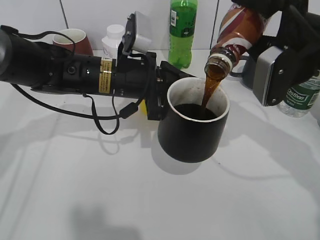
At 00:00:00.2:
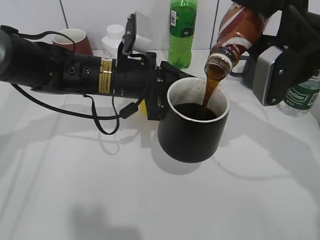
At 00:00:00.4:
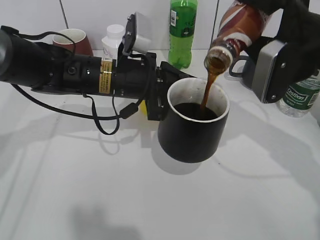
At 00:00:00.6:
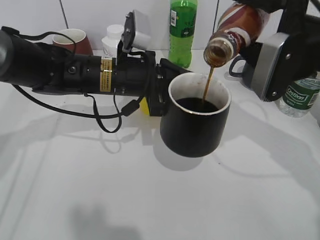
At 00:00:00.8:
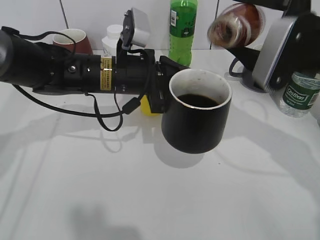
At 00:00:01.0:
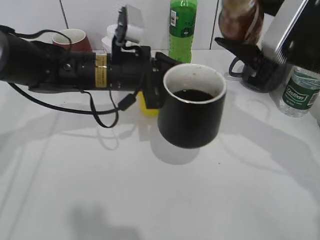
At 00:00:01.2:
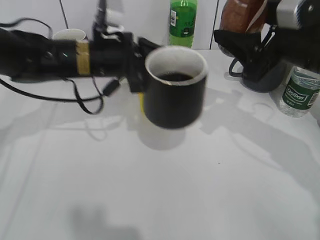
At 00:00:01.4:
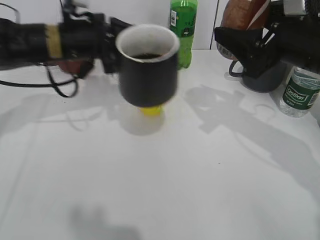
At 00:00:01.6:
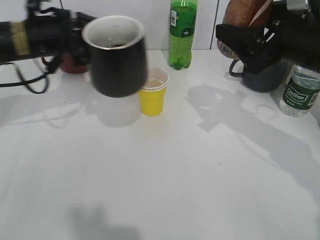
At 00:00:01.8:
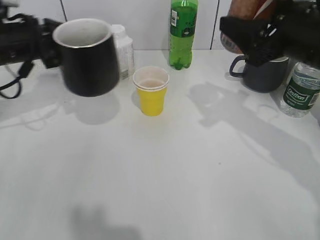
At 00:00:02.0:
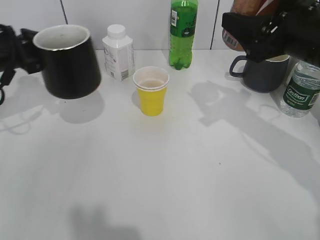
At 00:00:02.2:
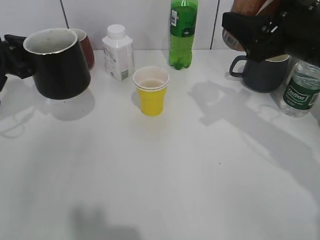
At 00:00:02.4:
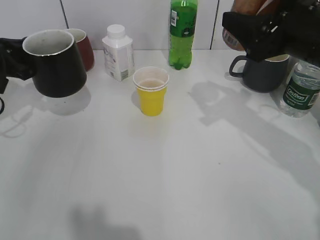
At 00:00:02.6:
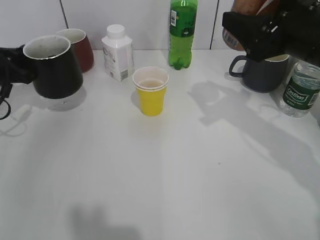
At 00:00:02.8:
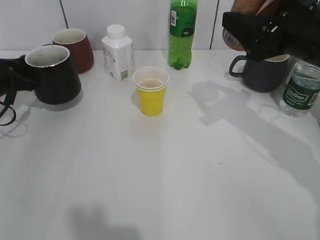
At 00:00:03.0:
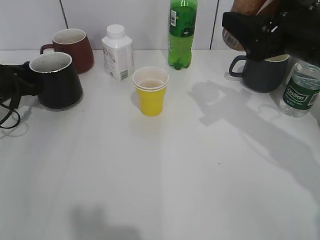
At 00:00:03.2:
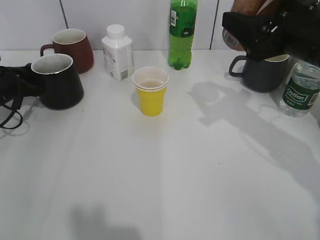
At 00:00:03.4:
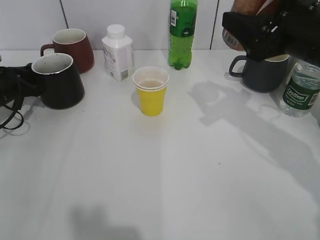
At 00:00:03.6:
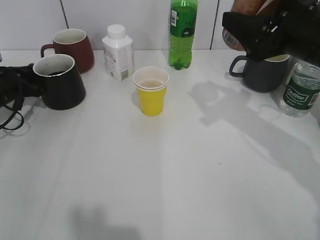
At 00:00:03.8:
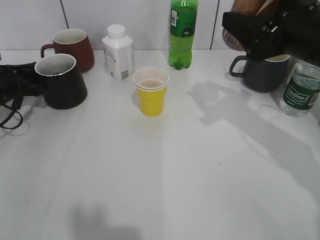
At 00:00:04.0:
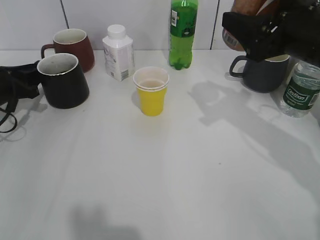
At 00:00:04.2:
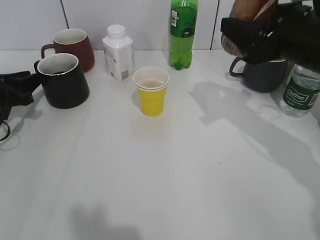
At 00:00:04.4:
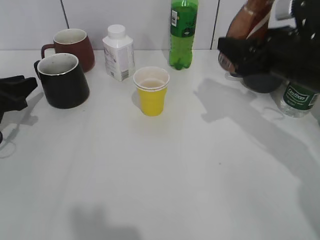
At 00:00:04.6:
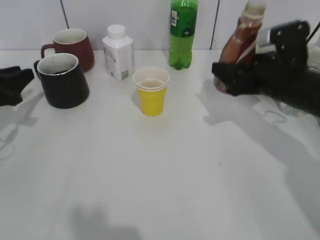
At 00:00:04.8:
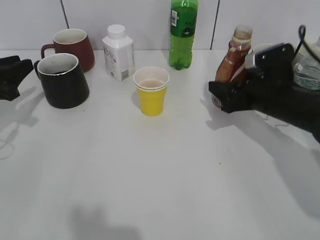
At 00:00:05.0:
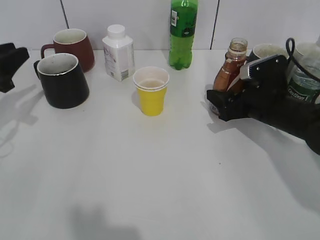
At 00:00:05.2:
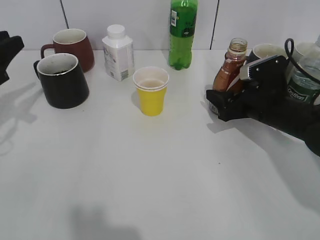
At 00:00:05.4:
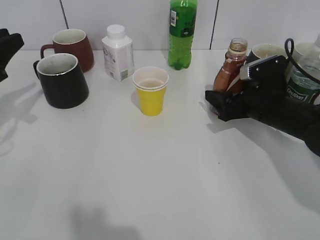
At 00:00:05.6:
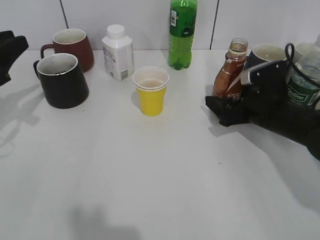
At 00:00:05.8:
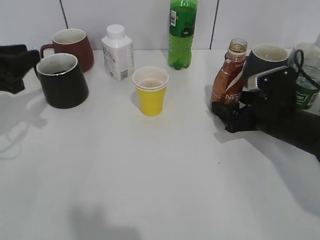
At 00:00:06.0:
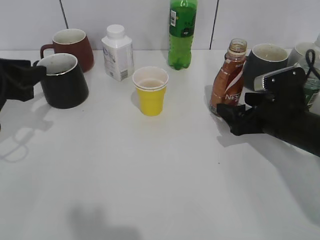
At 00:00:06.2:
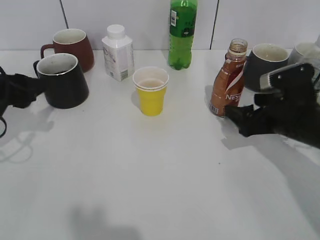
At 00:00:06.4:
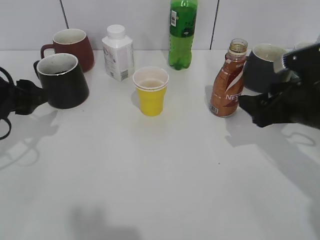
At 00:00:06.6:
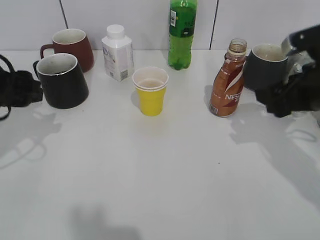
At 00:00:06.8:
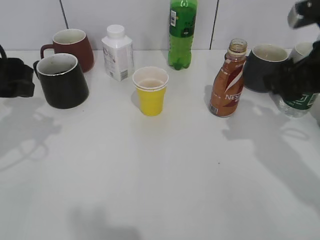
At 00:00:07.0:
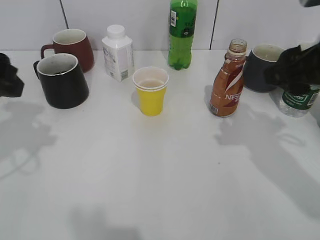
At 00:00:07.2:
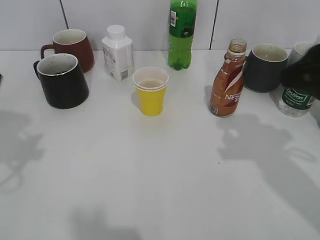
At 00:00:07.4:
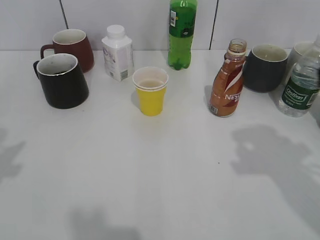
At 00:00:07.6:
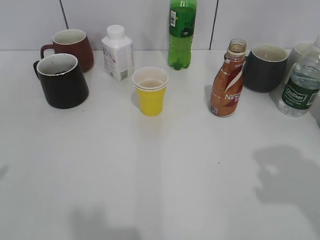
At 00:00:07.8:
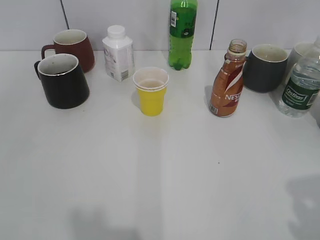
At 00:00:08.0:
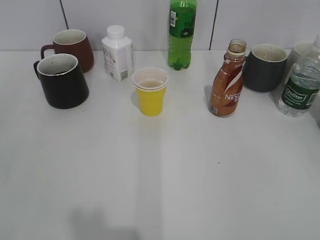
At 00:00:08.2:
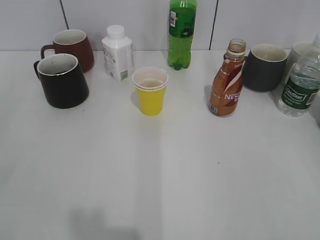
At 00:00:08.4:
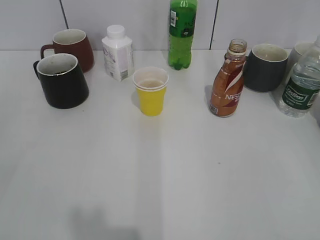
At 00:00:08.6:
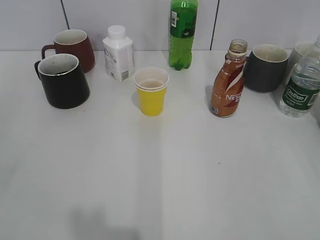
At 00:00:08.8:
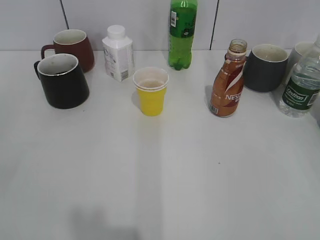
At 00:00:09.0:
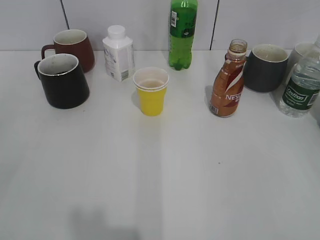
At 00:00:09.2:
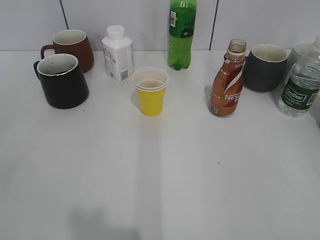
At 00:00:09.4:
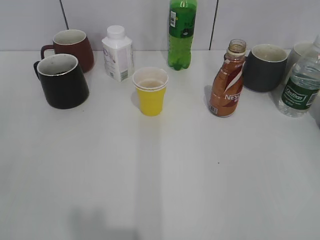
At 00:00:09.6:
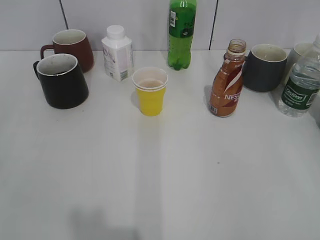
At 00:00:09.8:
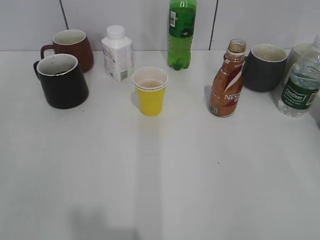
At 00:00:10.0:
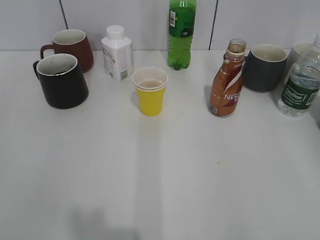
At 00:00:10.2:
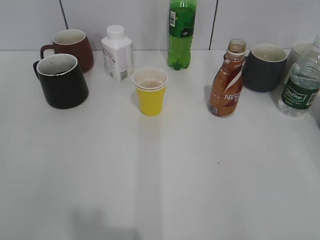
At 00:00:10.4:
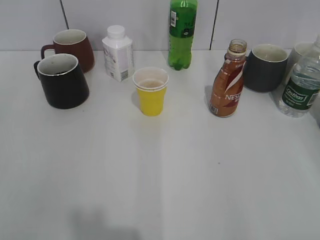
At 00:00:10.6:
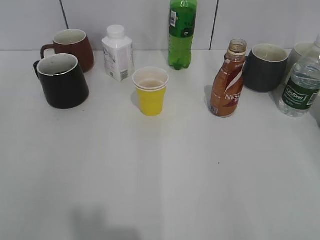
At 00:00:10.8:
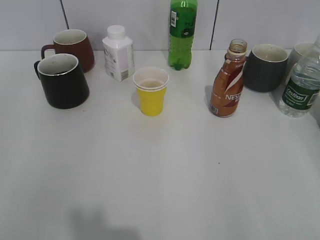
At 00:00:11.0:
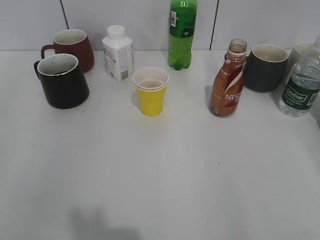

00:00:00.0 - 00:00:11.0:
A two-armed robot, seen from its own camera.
Step, 00:00:01.0 - 00:00:04.2: Place the black cup on the table with left gripper.
Step, 00:00:04.4 - 00:00:06.0: Place the coffee bottle on the table with right gripper.
00:00:00.0 - 00:00:01.6: The left gripper travels to the left by approximately 10 cm.
00:00:01.6 - 00:00:03.2: The left gripper goes roughly 20 cm to the left and downward.
00:00:03.2 - 00:00:04.8: The right gripper travels downward by roughly 15 cm, while the left gripper moves backward and upward, about 10 cm, and opens its fingers.
00:00:04.8 - 00:00:06.2: The right gripper changes place by some 5 cm, and opens up. The left gripper shifts by roughly 5 cm, and opens up.
00:00:06.2 - 00:00:07.8: Both grippers move backward and upward, roughly 30 cm. The right gripper closes its fingers.

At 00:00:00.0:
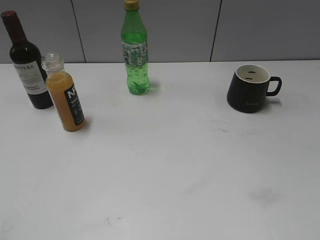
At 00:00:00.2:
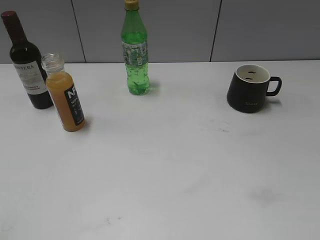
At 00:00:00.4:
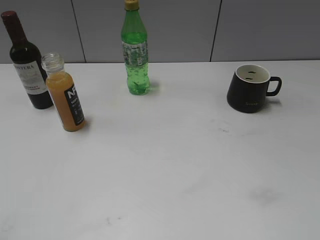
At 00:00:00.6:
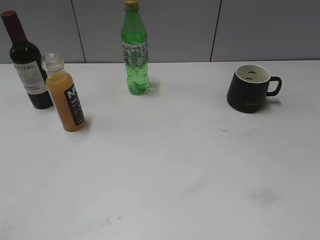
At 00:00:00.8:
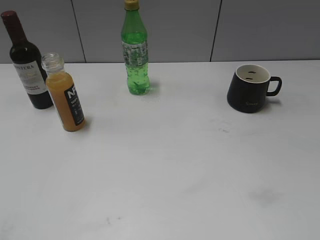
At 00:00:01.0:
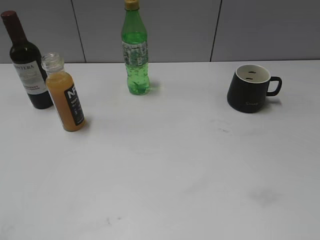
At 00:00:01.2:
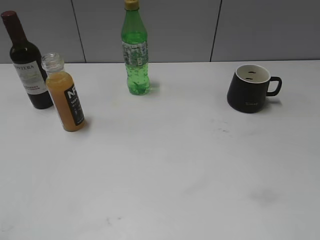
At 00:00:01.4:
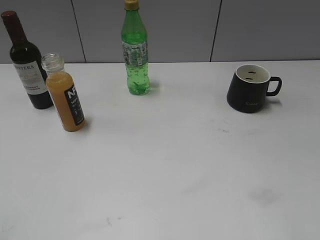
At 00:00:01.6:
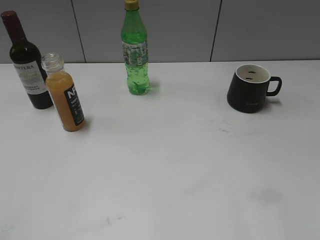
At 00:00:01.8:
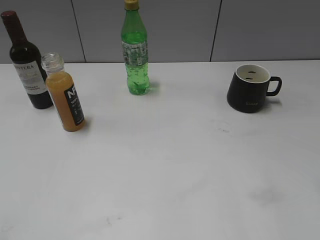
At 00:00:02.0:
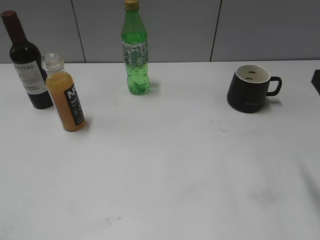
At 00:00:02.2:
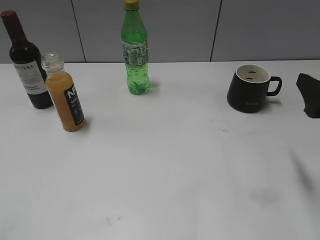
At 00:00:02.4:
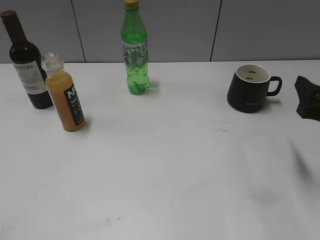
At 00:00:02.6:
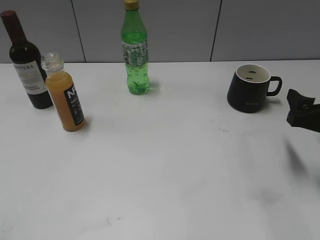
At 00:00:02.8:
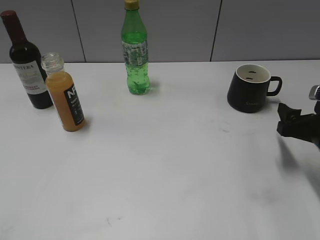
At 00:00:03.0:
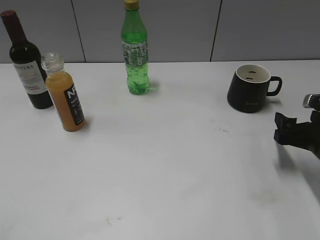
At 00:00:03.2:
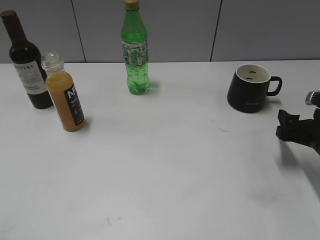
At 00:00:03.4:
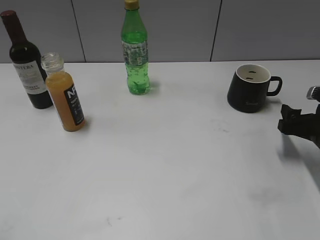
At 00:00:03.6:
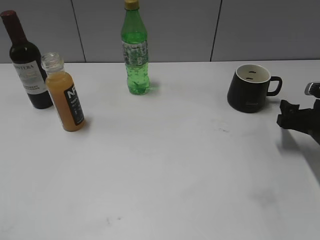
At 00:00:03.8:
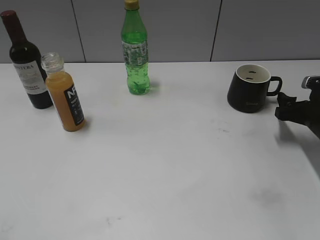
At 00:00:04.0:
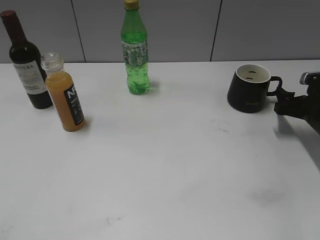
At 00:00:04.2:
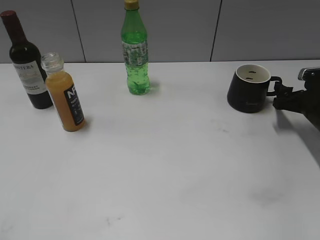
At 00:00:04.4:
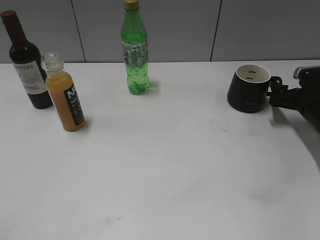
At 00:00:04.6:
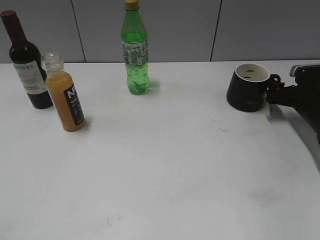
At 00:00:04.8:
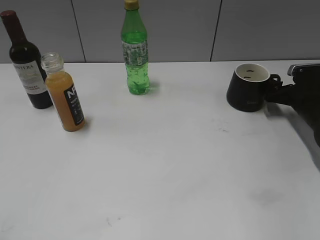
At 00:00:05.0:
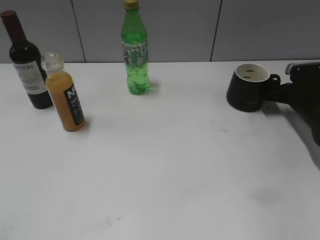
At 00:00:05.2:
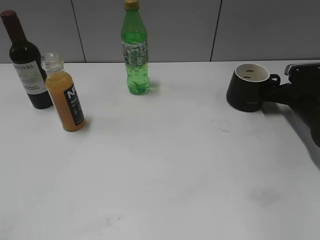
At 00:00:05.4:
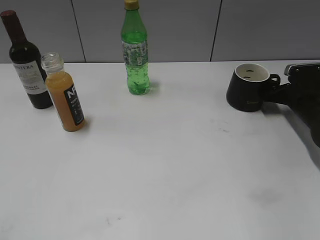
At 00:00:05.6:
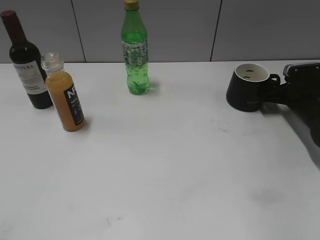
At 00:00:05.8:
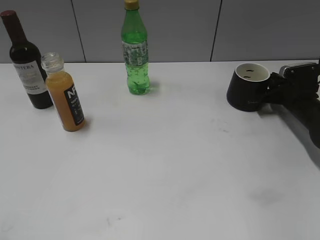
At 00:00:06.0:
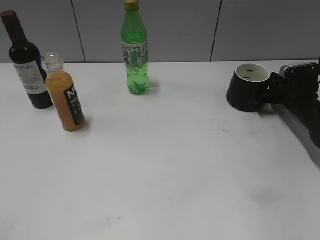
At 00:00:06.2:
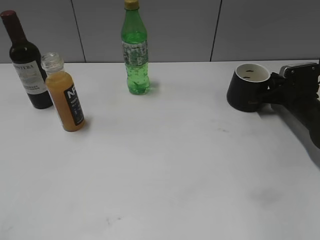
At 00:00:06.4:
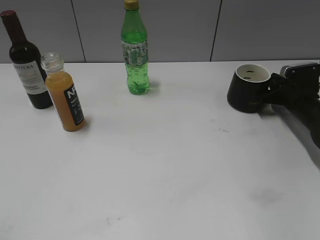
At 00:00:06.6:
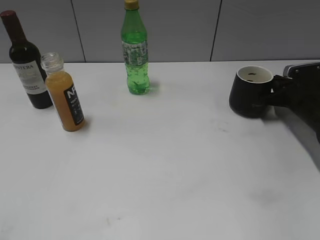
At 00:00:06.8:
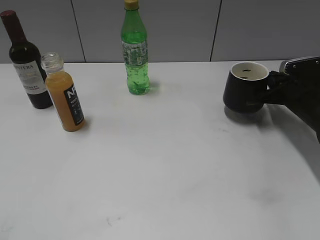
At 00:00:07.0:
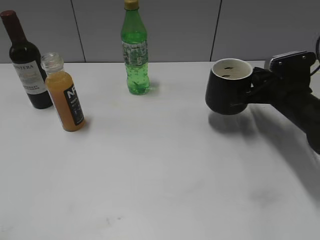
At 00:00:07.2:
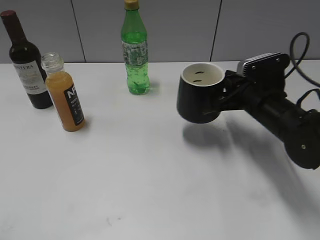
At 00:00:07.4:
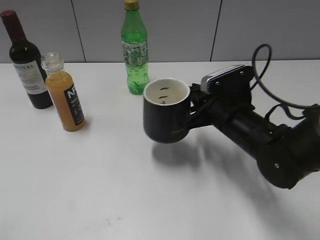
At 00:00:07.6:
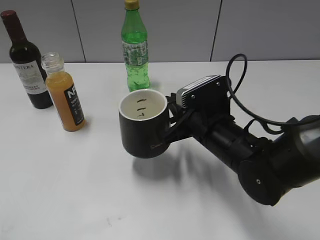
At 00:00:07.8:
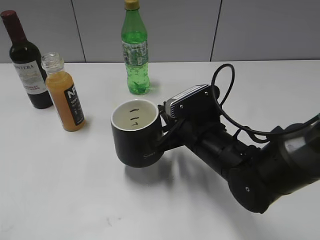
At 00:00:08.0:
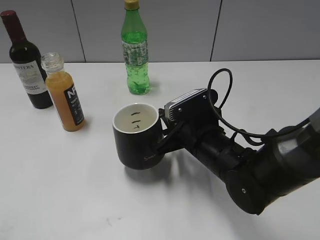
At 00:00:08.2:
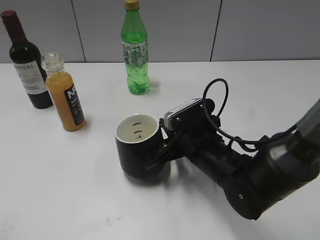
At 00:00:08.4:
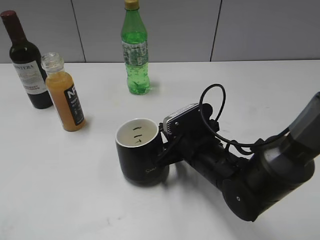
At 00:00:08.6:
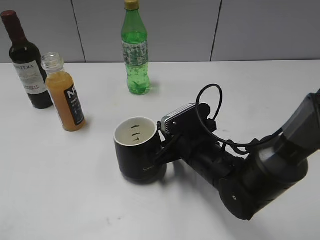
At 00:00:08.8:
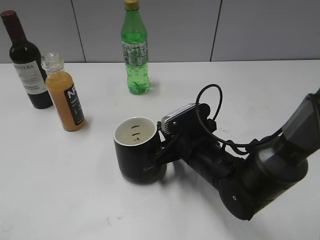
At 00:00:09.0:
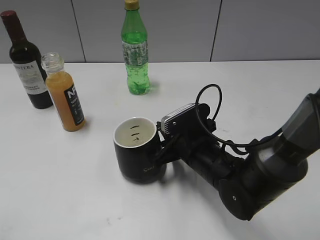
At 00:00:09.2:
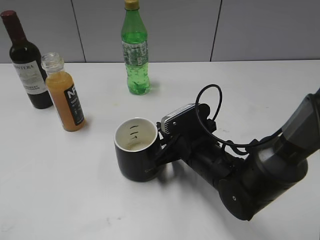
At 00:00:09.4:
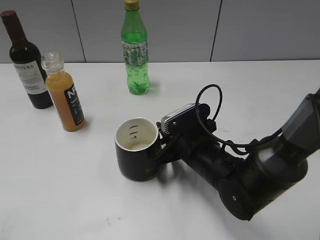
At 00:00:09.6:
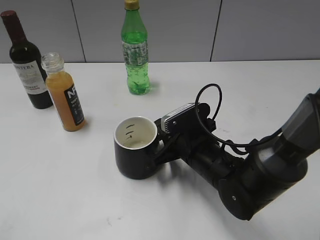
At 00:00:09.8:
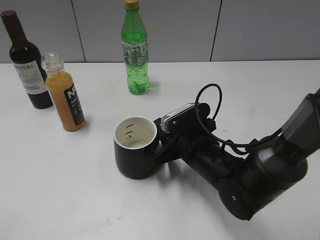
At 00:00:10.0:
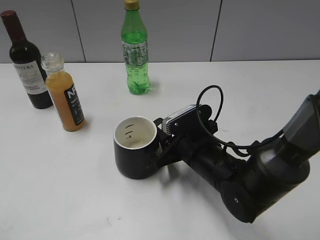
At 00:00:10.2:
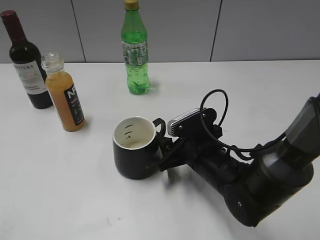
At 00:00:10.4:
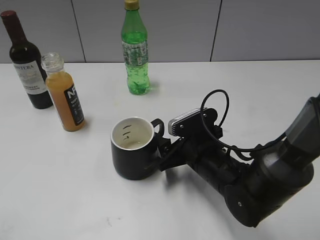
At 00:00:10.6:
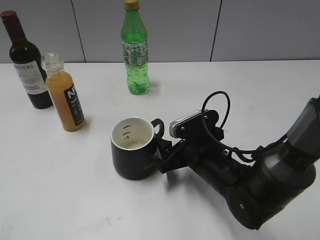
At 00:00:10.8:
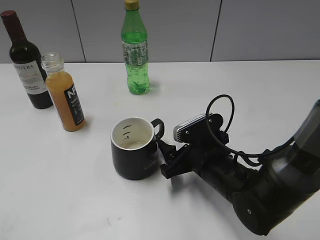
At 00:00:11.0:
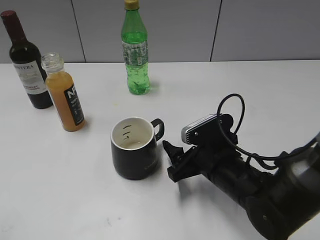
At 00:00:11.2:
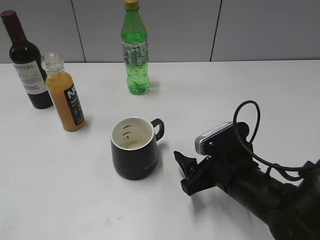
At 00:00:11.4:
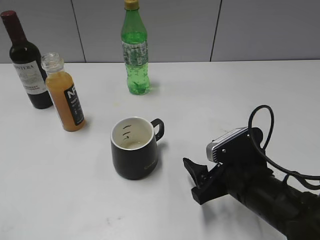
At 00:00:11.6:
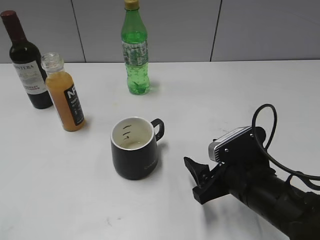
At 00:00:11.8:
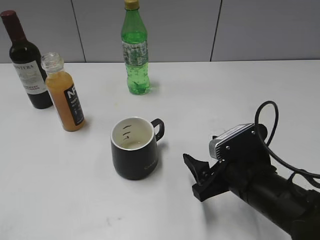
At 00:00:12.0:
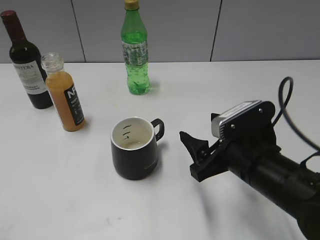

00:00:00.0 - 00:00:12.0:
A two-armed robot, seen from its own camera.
Step, 00:00:02.0 - 00:00:06.4: Grasp the black cup with right gripper.
Step, 00:00:06.8 - 00:00:10.2: Place the black cup in the center of view with right gripper.
00:00:01.6 - 00:00:03.0: The right gripper moves downward and forward, approximately 25 cm.
00:00:03.0 - 00:00:04.4: The right gripper shifts approximately 10 cm forward.
00:00:04.4 - 00:00:06.0: The right gripper closes its fingers.
00:00:06.0 - 00:00:07.6: The right gripper is displaced to the left and backward by roughly 25 cm.
00:00:07.6 - 00:00:09.0: The right gripper goes about 5 cm downward.
00:00:09.0 - 00:00:10.4: The right gripper opens.
00:00:10.4 - 00:00:12.0: The right gripper is displaced upward, backward and to the right by about 10 cm.
